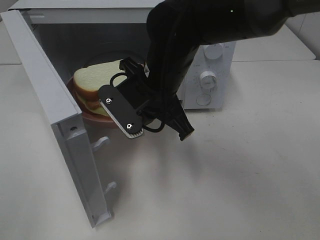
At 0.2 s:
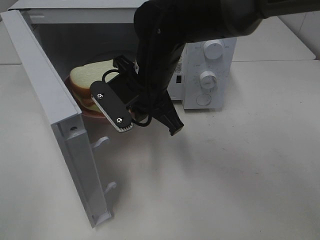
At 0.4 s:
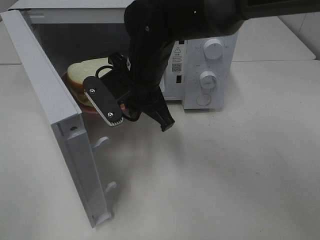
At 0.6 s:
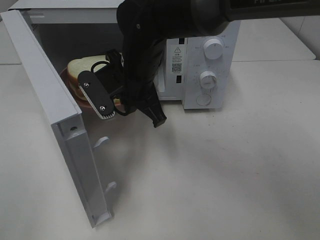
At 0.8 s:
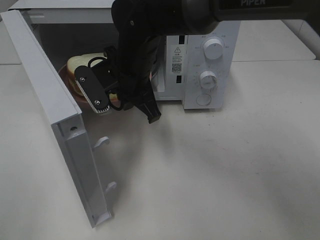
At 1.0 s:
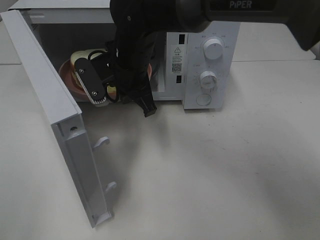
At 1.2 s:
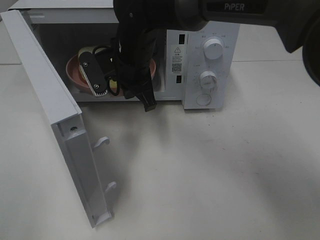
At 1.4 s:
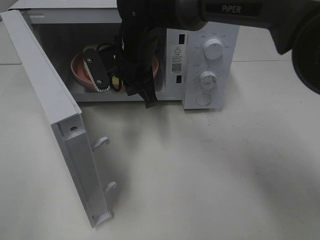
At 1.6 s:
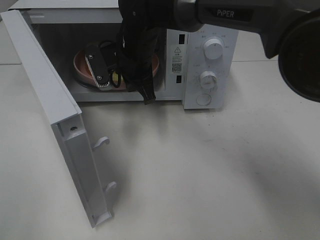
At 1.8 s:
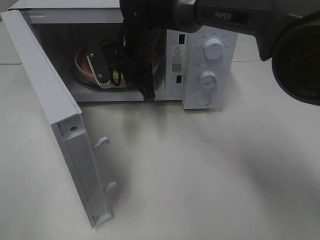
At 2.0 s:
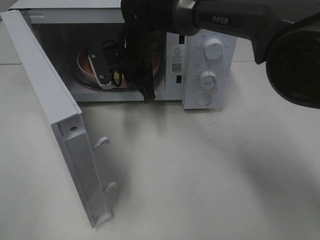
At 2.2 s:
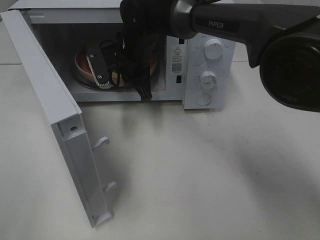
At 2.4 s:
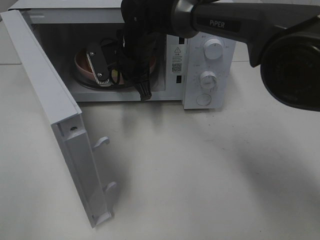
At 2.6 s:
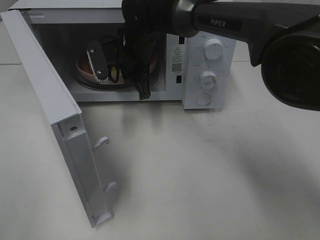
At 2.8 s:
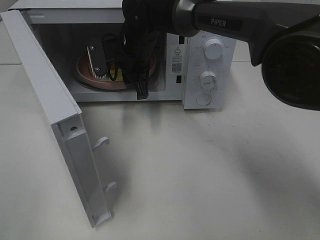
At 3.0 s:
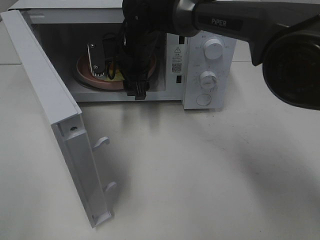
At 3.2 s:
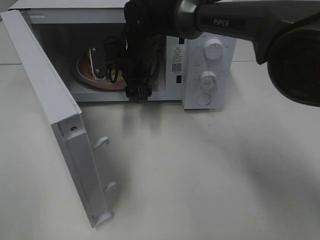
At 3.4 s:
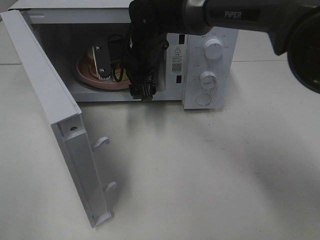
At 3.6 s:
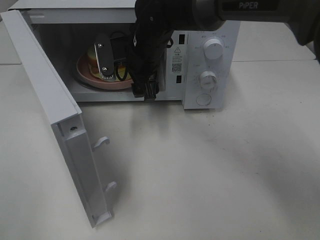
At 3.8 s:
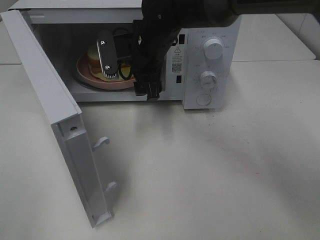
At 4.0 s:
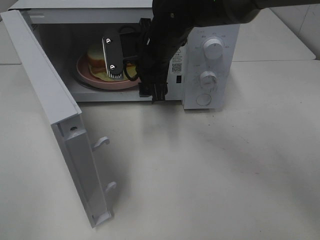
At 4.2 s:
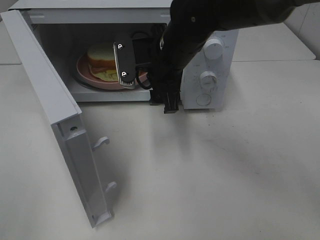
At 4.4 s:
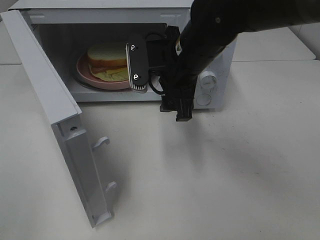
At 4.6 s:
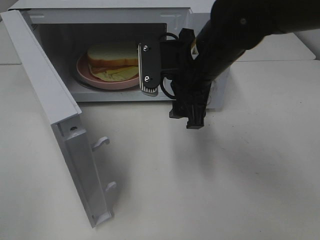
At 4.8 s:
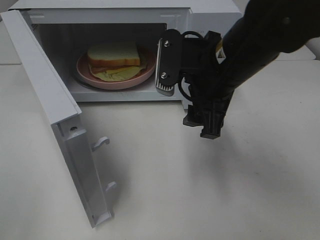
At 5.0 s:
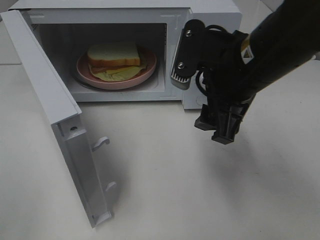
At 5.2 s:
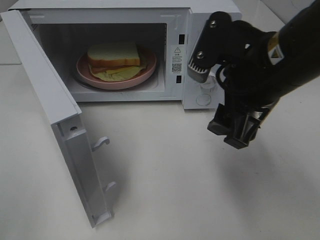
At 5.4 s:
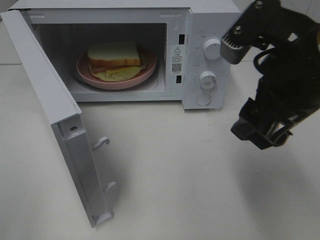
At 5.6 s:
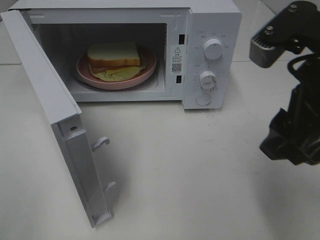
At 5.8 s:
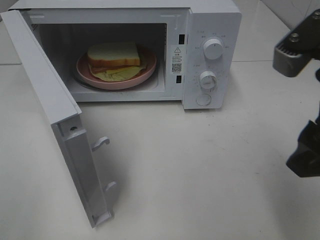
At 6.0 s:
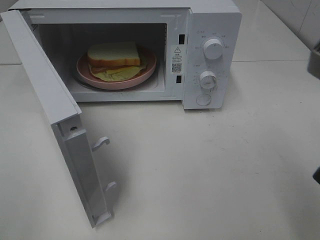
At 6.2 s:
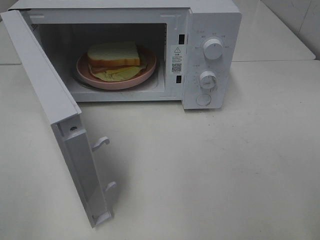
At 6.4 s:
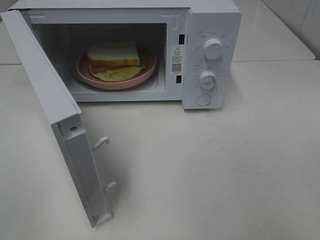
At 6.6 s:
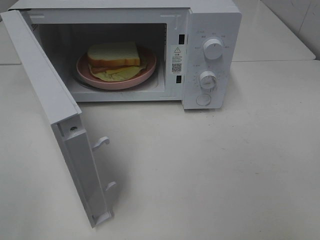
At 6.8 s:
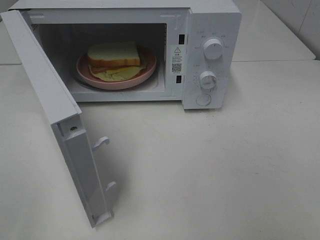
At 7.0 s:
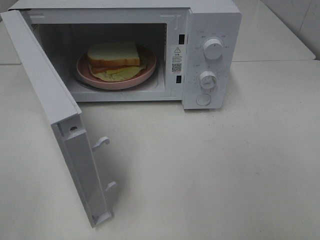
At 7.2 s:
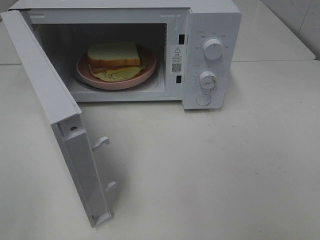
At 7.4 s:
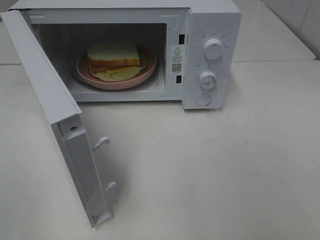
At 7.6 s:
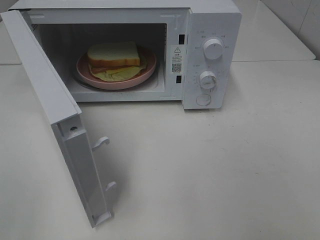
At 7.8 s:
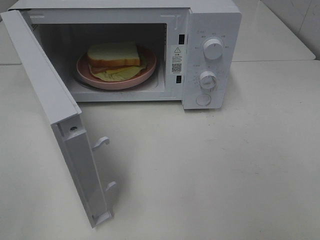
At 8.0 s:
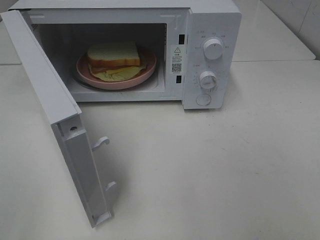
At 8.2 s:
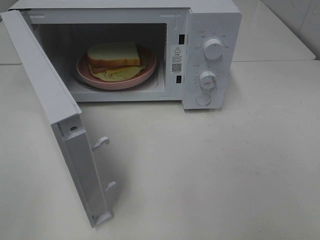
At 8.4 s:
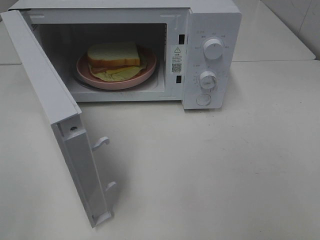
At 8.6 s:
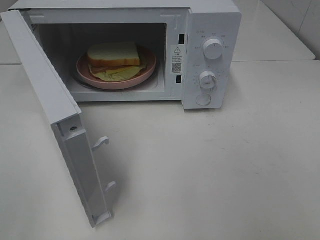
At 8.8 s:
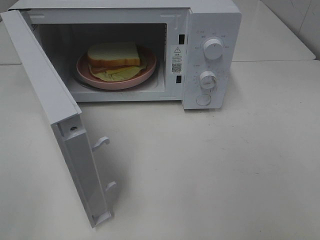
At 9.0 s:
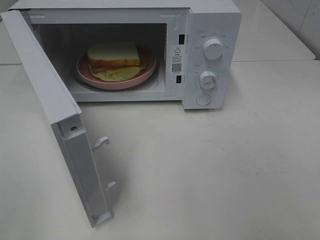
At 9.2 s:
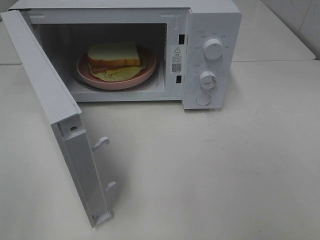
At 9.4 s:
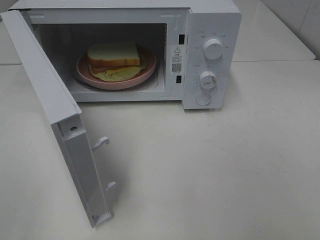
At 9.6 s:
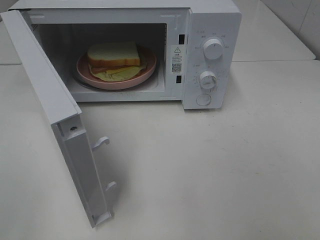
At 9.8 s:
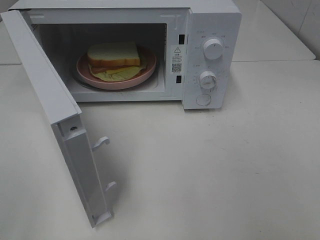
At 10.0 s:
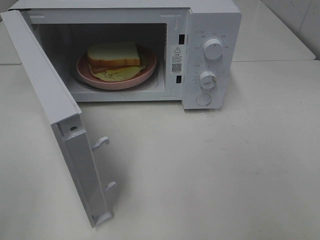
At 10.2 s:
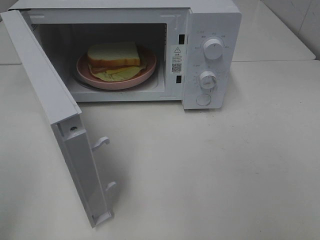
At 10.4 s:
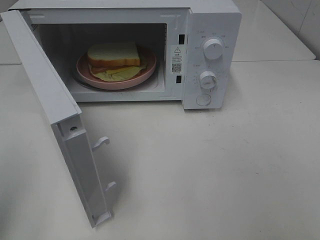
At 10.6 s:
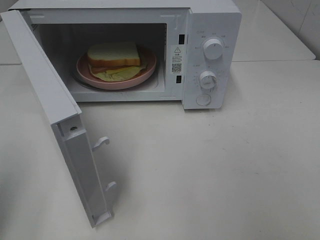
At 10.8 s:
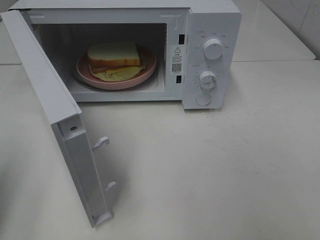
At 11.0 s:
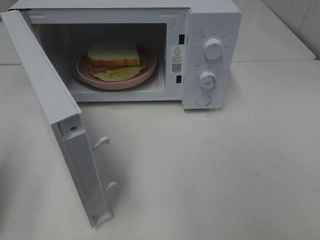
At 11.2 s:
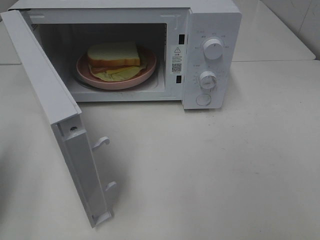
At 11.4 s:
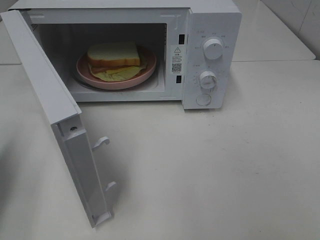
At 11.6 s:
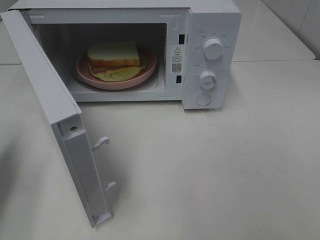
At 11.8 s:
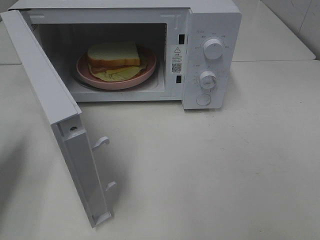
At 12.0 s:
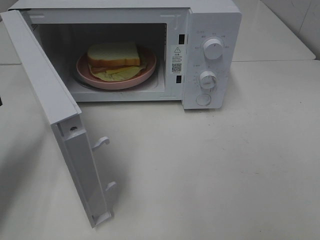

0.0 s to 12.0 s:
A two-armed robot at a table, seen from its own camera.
Task of the whole recording: Heat Sandwich.
Step, 0.0 to 3.6 s: Right hand: place the plate in the microwave.
0.0 to 1.6 s: The right gripper goes about 10 cm forward.
1.6 to 3.0 s: The right gripper opens up.
3.0 to 4.4 s: The right gripper moves backward and to the right, about 15 cm.
4.4 to 6.0 s: The right gripper travels backward, to the right and upward by about 25 cm.
6.0 to 7.6 s: The right gripper travels backward and to the right by some 15 cm.
7.6 to 9.0 s: The two grippers keep their place.
10.4 to 12.0 s: The left gripper moves forward and downward, approximately 20 cm.

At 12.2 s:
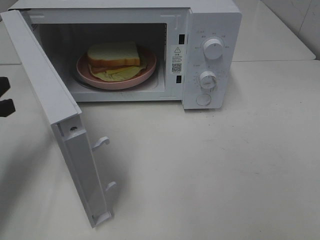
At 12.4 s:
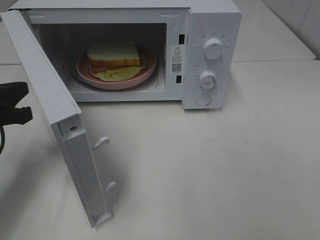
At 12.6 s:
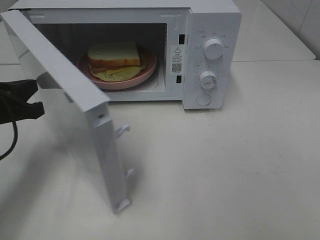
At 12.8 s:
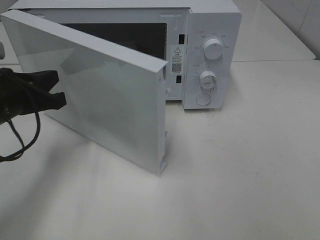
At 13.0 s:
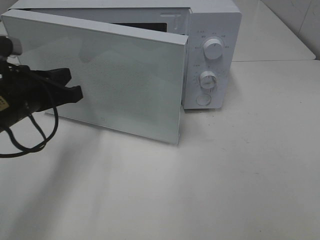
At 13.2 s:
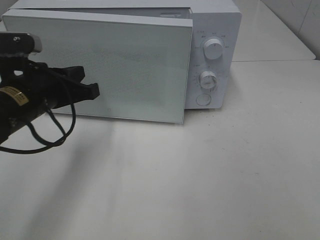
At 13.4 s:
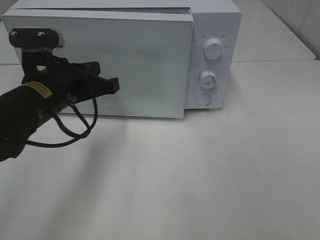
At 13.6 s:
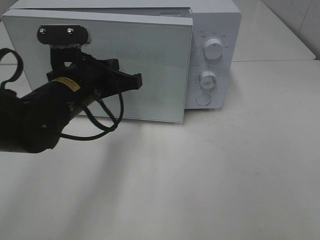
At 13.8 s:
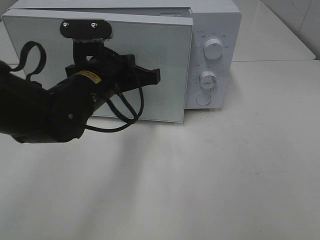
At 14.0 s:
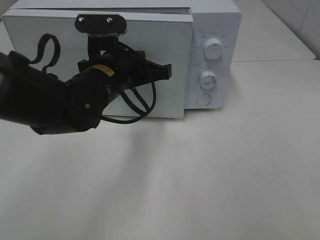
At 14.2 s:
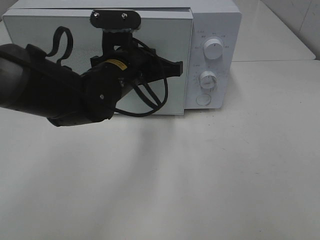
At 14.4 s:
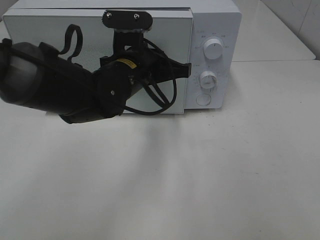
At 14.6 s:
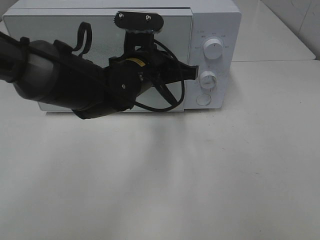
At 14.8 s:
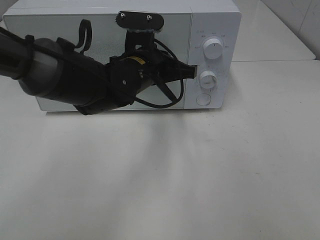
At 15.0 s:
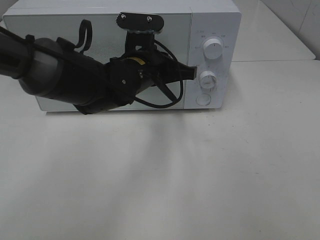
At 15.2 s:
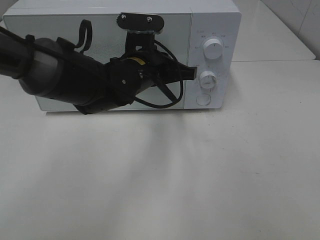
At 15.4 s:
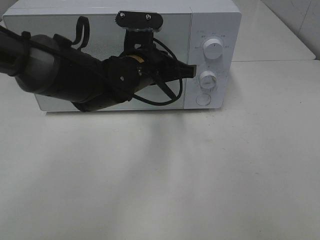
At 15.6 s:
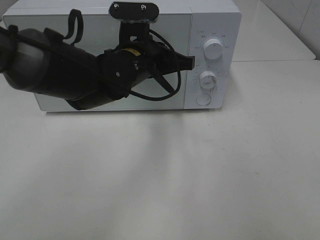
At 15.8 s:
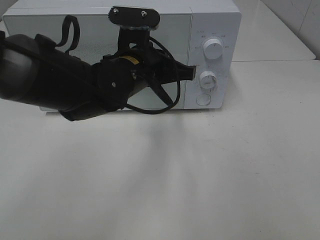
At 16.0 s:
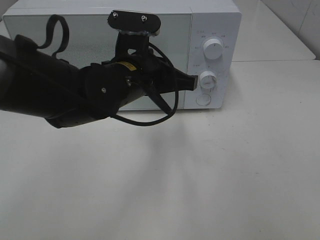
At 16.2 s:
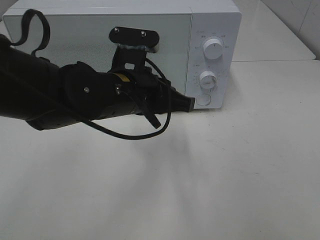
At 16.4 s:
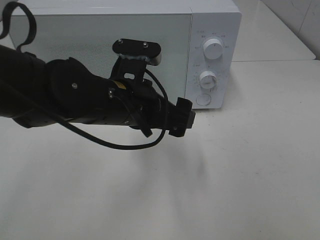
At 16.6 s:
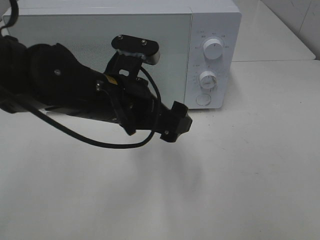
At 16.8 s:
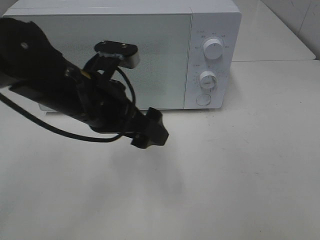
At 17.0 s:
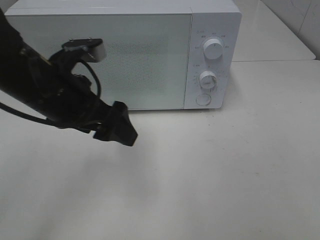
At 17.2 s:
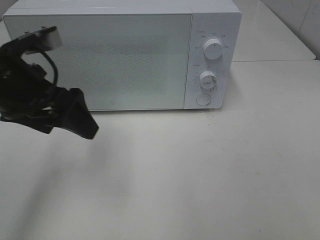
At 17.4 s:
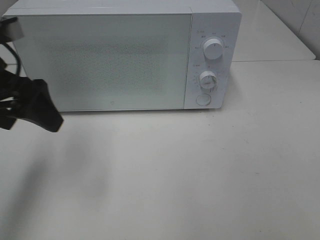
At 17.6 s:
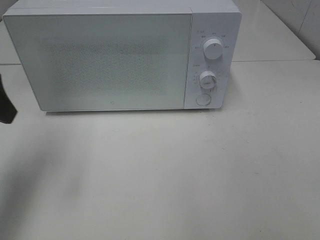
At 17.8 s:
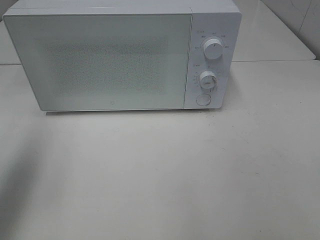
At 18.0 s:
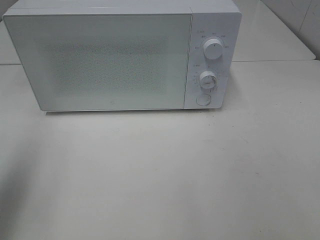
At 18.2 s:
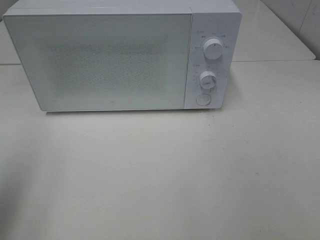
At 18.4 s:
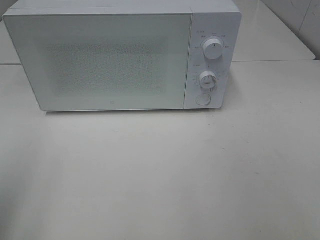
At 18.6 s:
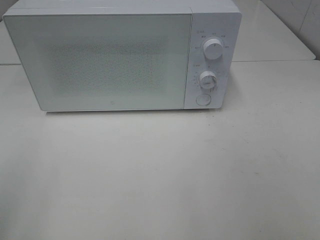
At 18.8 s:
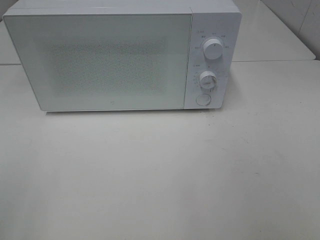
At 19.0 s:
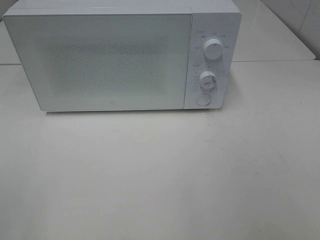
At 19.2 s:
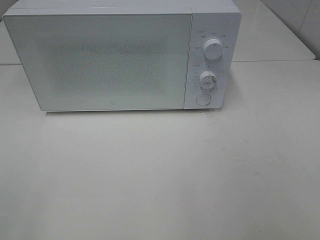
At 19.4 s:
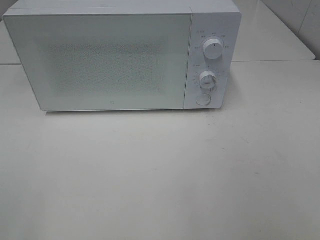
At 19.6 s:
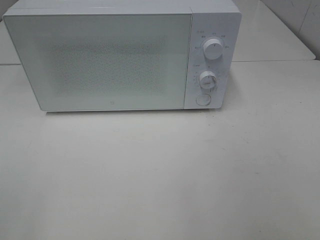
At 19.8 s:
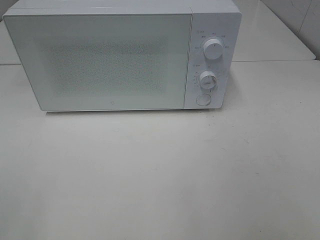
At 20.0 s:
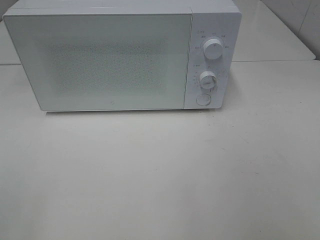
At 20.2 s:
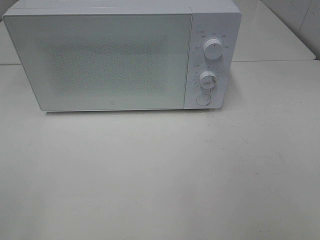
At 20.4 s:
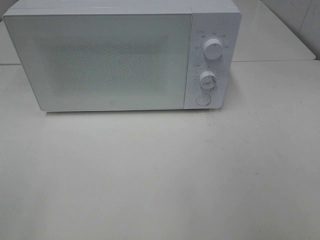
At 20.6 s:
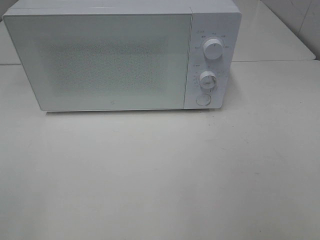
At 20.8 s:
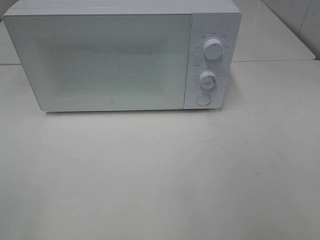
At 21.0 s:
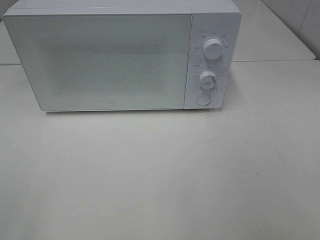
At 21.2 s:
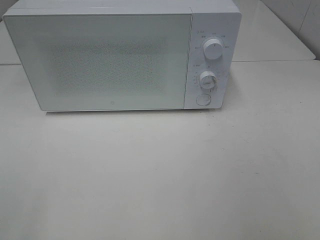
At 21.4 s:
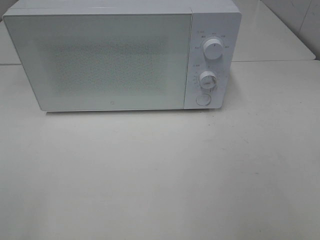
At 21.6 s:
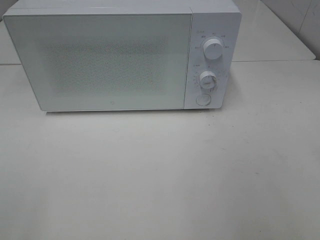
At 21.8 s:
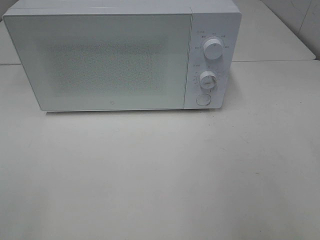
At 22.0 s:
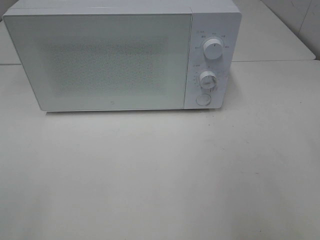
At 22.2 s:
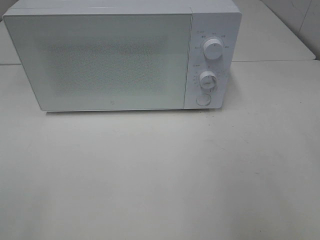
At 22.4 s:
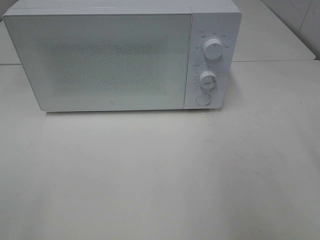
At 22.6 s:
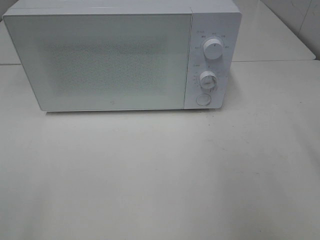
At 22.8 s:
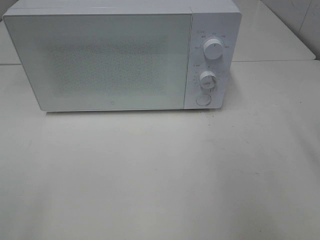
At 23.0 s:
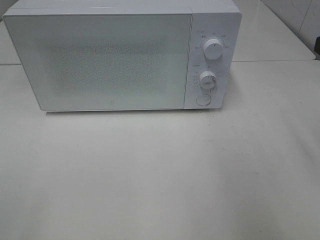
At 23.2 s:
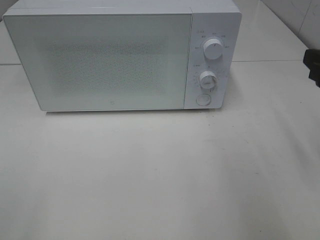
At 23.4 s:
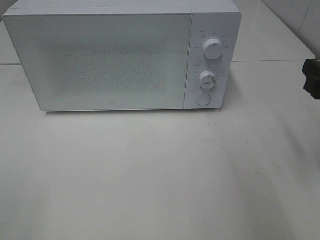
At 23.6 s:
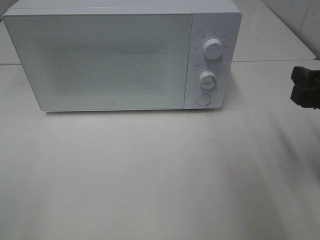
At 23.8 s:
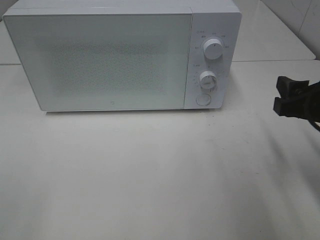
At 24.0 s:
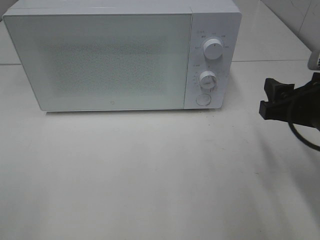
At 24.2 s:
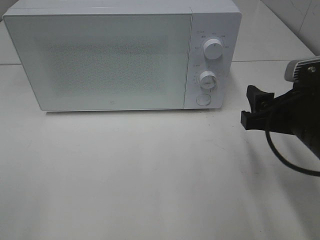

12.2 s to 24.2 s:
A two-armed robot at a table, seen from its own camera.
Task of the whole recording: Heat Sandwich.
Step, 12.2 to 15.8 s: Left hand: close the microwave door.
12.2 to 13.8 s: The left gripper goes approximately 20 cm to the right.
13.8 to 15.2 s: The left gripper travels to the right by about 5 cm.
15.2 to 16.6 s: The left gripper heads backward, covering approximately 10 cm, and opens.
16.6 to 18.2 s: The left gripper goes some 30 cm to the left, backward and upward.
18.2 to 19.8 s: The left gripper is displaced backward by roughly 15 cm.
22.6 to 24.2 s: The right gripper goes approximately 15 cm downward and to the left.
